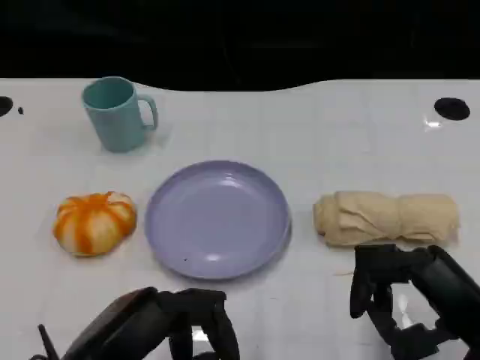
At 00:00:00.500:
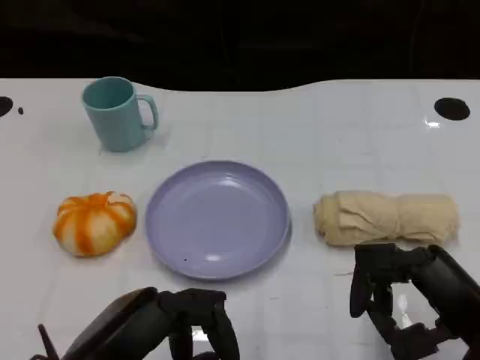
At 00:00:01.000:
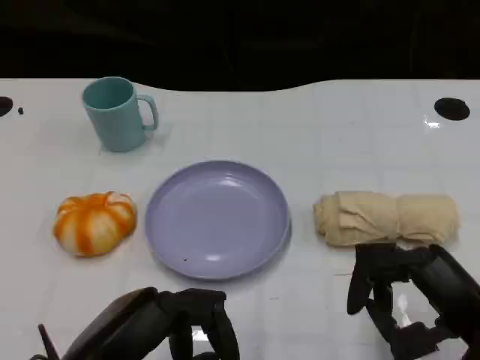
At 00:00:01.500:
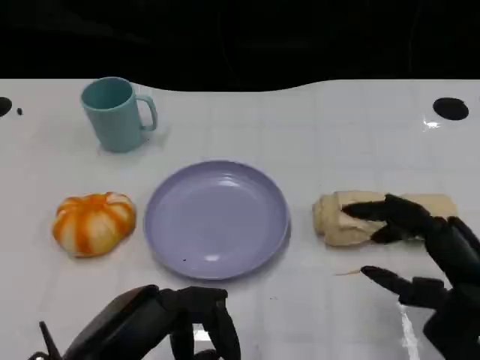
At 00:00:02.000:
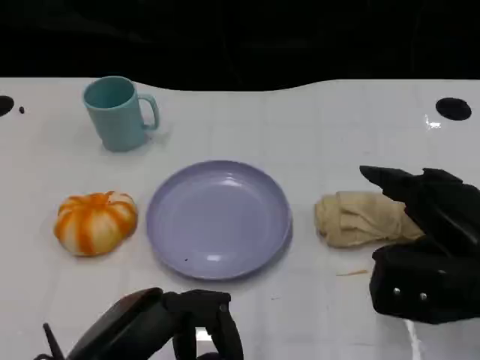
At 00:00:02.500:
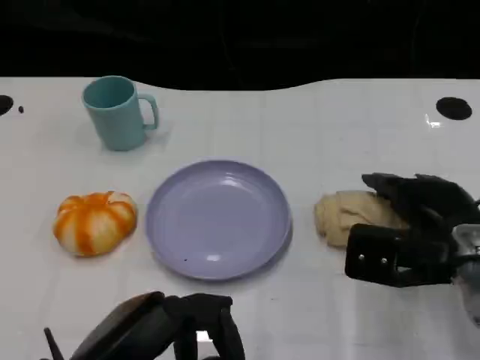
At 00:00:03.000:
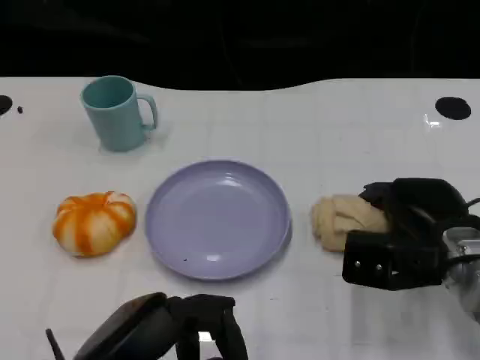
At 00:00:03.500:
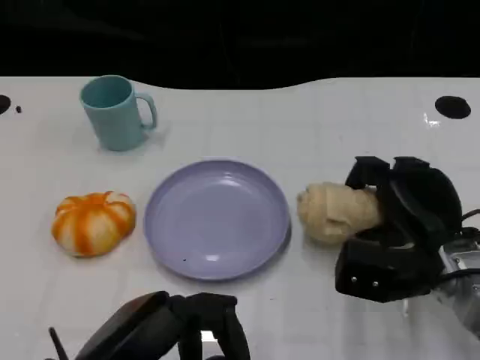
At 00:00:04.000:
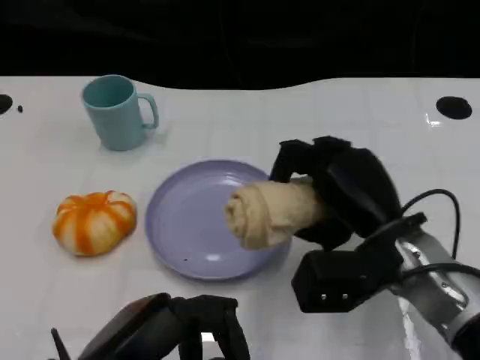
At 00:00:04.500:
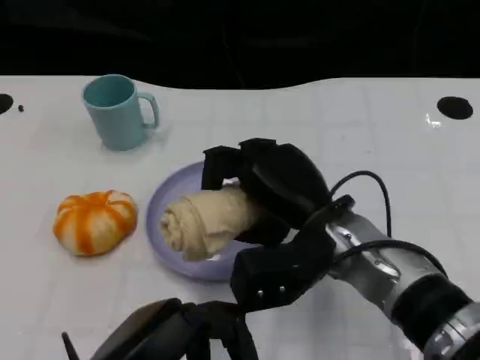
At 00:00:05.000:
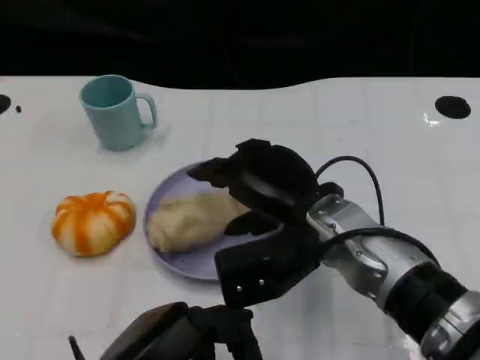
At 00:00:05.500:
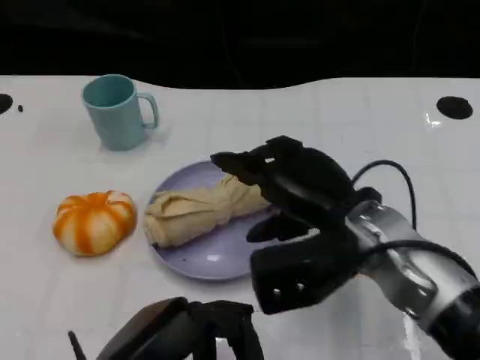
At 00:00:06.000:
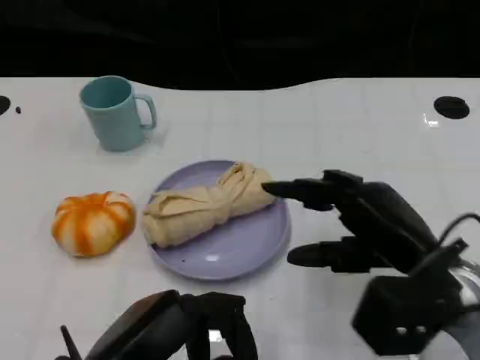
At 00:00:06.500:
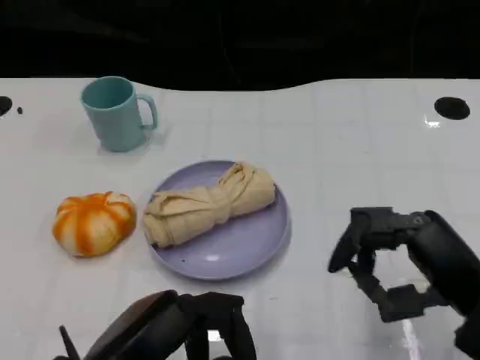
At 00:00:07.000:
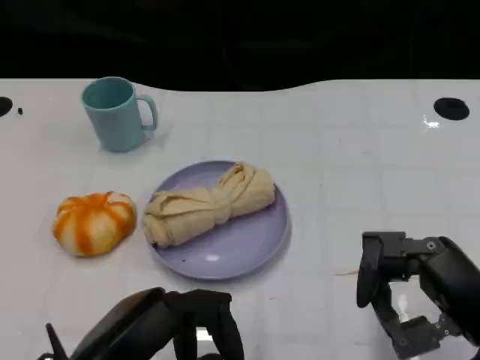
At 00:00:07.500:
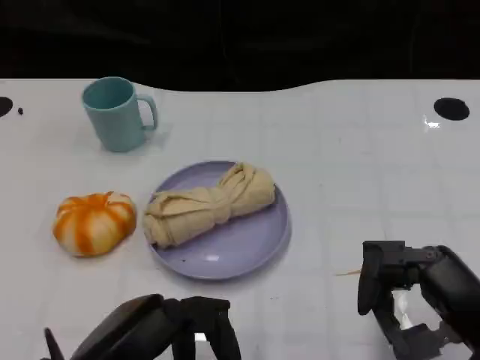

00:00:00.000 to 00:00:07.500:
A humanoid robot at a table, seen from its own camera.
Task of the whole recording: Grasp the towel on the left side of the plate with the left hand and place it into the plate.
00:00:00.000 to 00:00:02.000: The right hand is displaced forward by roughly 5 cm.
00:00:02.000 to 00:00:04.000: The right hand shifts about 10 cm to the left.
00:00:05.500 to 00:00:07.500: The right hand moves to the right and backward, roughly 15 cm.

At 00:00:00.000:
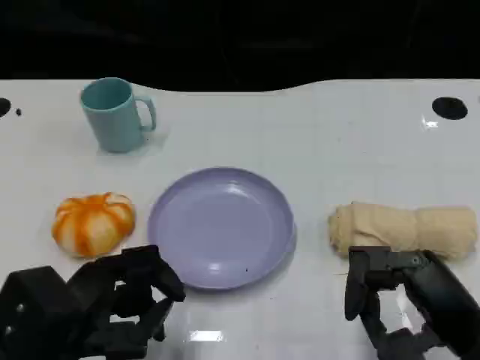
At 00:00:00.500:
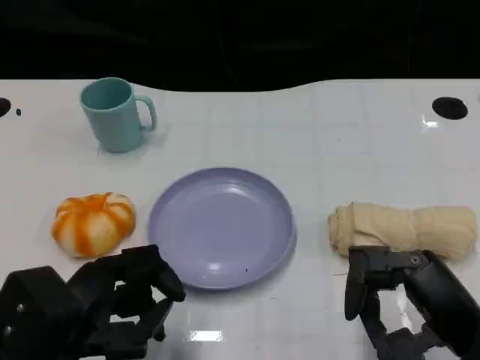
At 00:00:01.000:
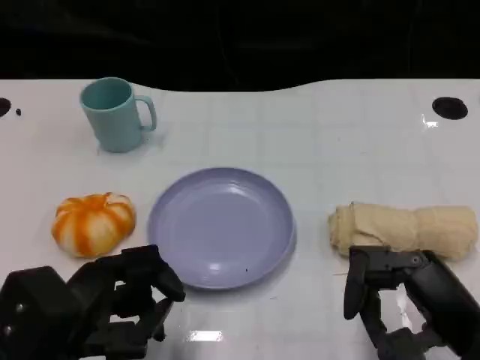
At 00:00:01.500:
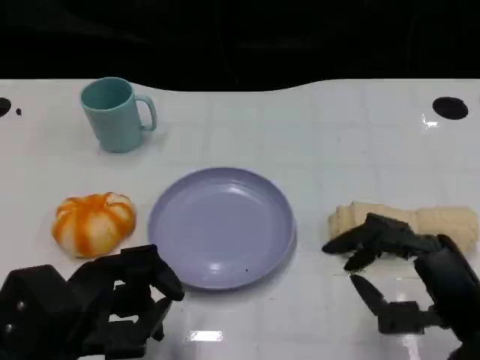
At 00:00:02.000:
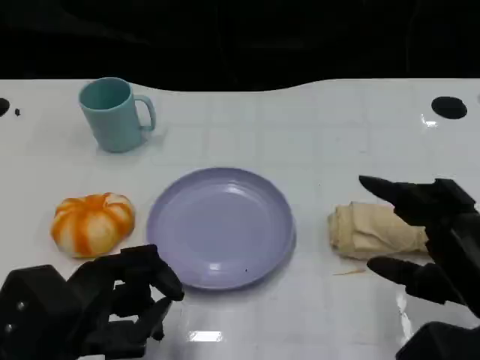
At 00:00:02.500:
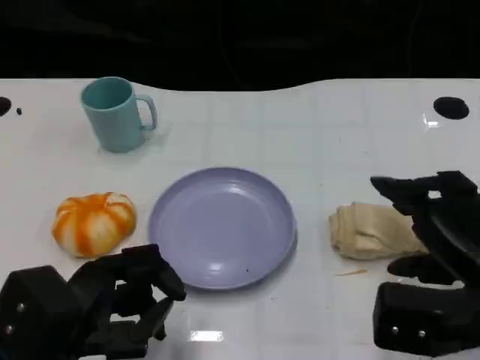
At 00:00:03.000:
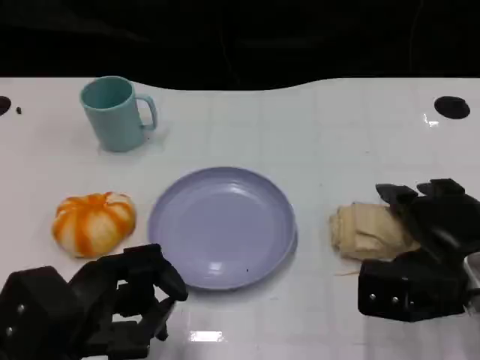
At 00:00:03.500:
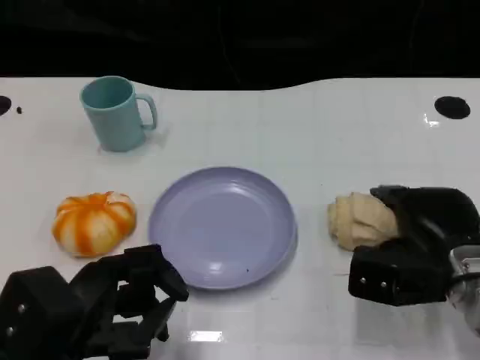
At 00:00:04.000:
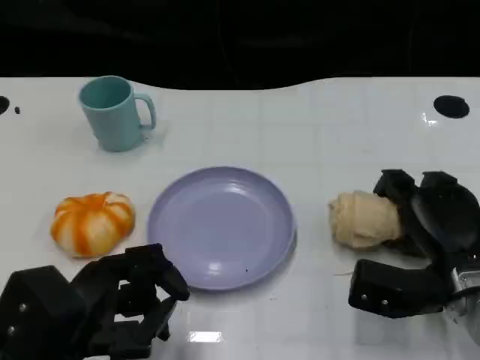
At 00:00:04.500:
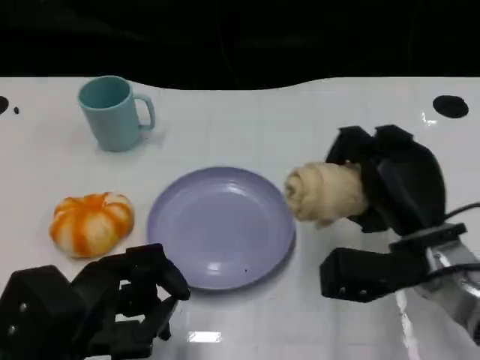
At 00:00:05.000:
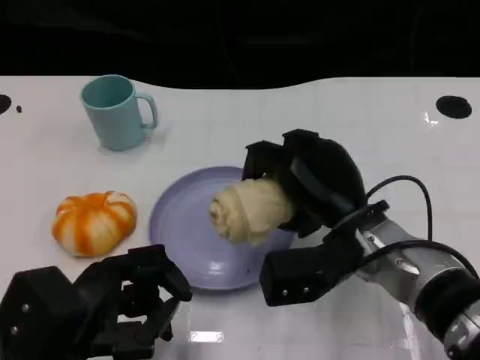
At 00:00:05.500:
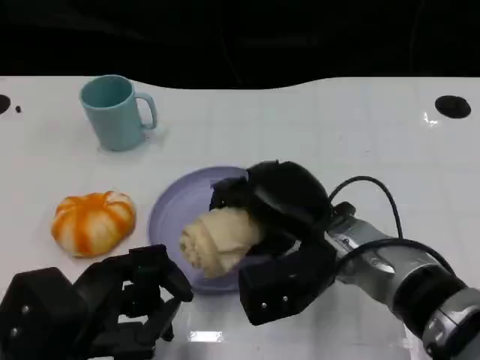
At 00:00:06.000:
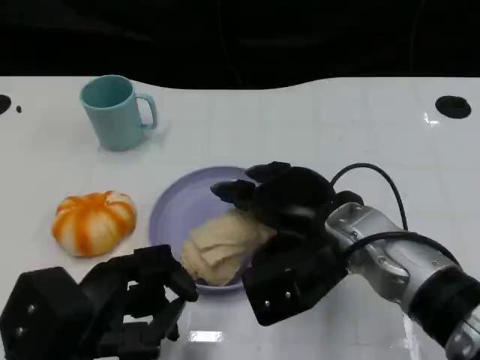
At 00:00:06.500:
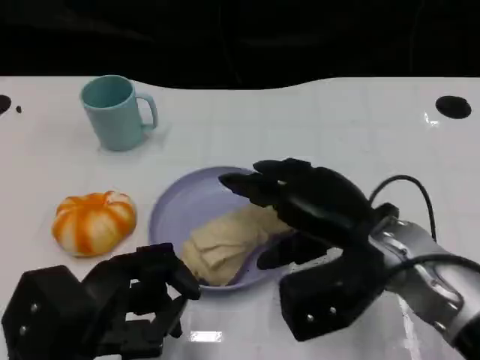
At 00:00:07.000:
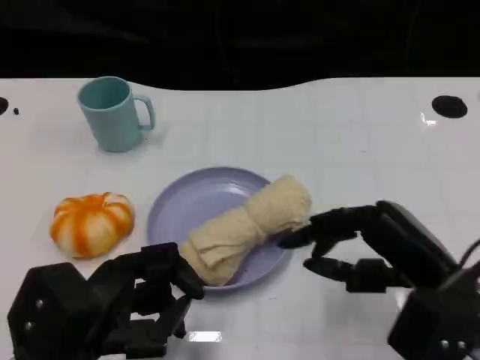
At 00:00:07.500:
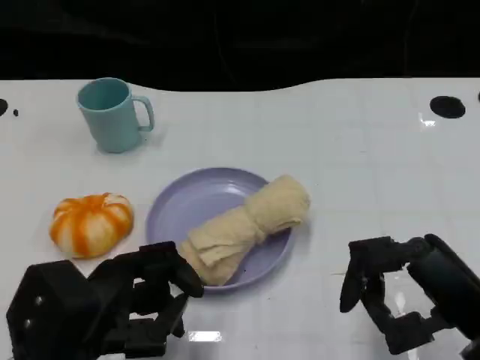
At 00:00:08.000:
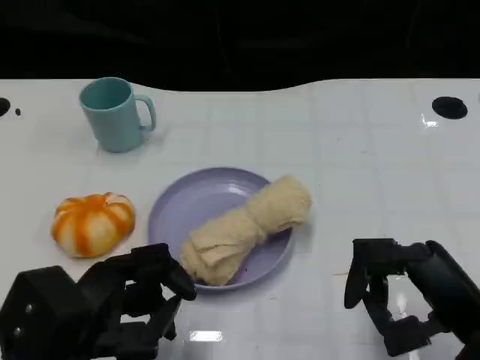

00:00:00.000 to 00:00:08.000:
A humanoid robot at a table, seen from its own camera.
Task of the whole recording: Grasp the towel on the left side of the plate with the left hand and place it into the plate.
00:00:02.000 to 00:00:04.000: The right hand is displaced forward and downward by about 10 cm.
00:00:04.000 to 00:00:06.000: The right hand goes approximately 15 cm to the left and upward.
00:00:06.000 to 00:00:08.000: The right hand is displaced to the right and backward by some 15 cm.

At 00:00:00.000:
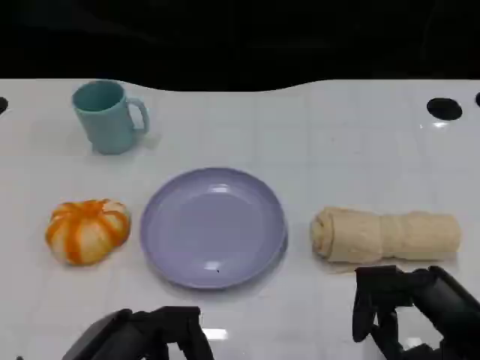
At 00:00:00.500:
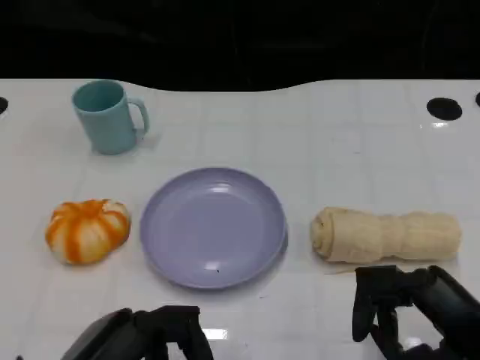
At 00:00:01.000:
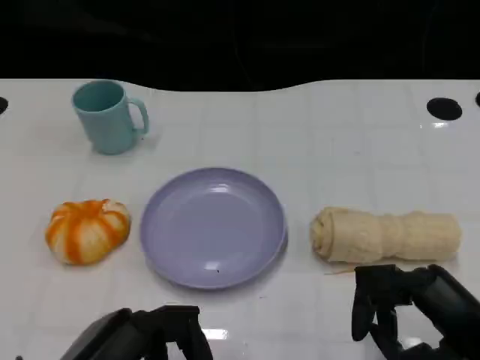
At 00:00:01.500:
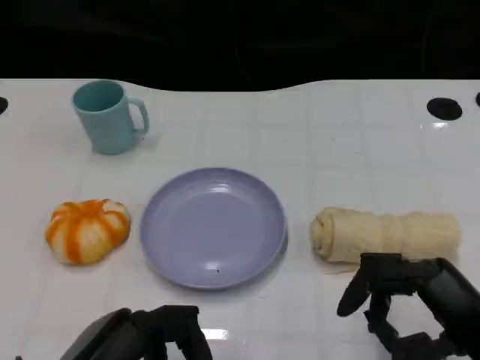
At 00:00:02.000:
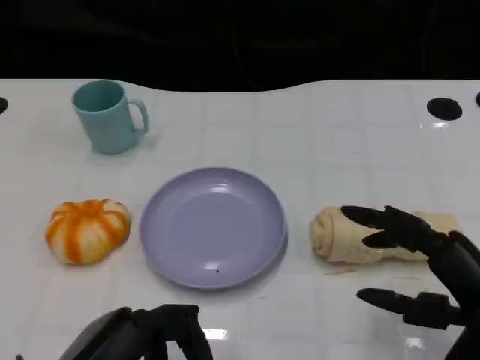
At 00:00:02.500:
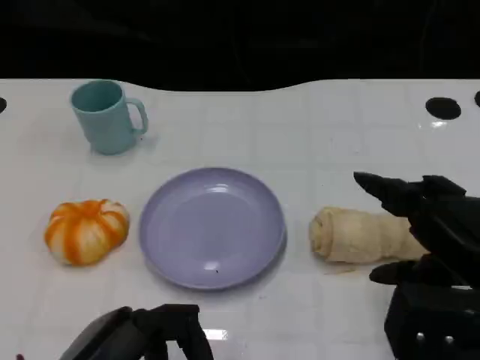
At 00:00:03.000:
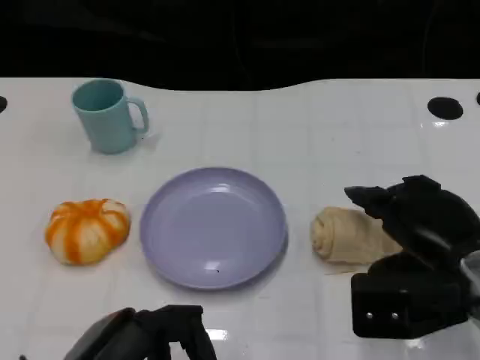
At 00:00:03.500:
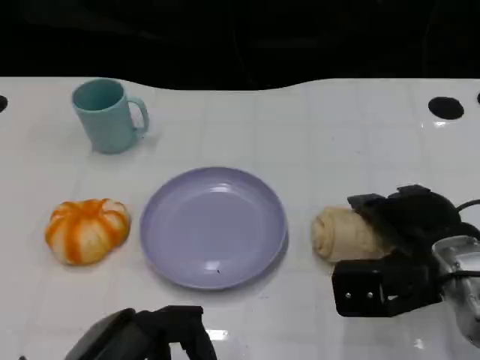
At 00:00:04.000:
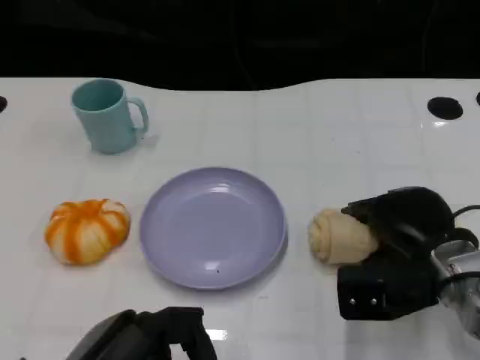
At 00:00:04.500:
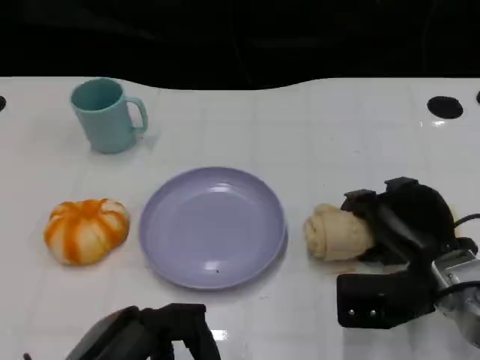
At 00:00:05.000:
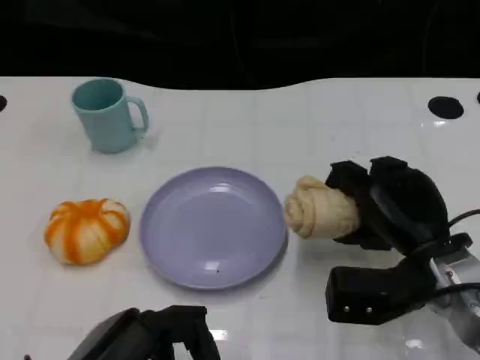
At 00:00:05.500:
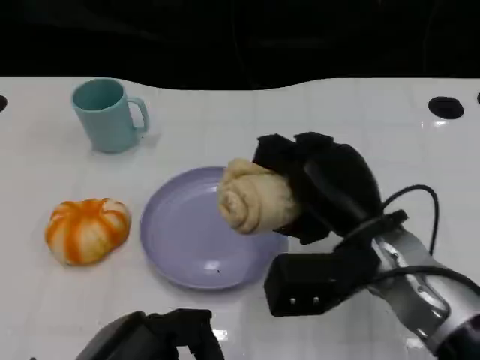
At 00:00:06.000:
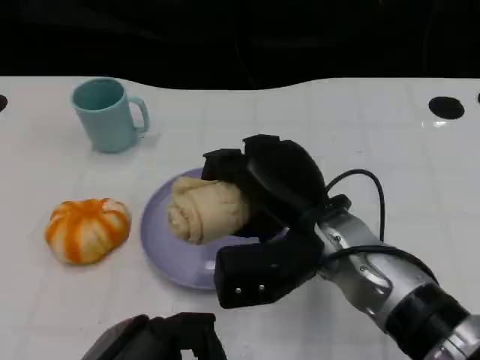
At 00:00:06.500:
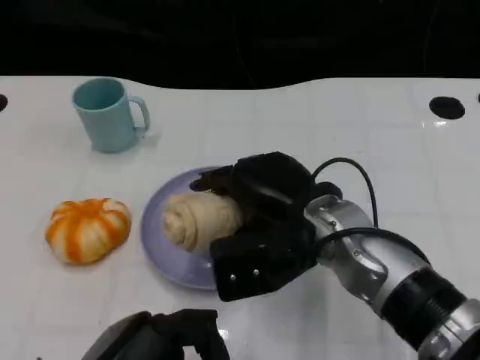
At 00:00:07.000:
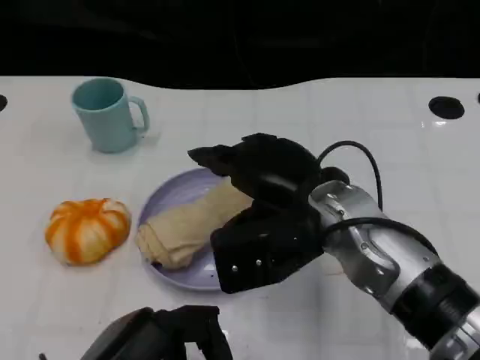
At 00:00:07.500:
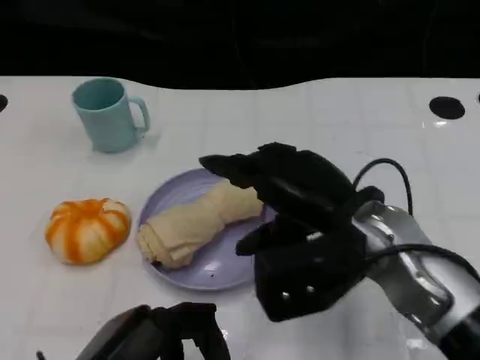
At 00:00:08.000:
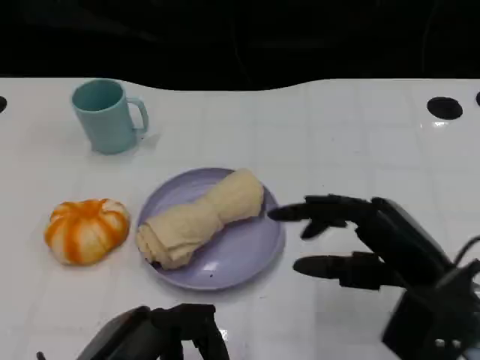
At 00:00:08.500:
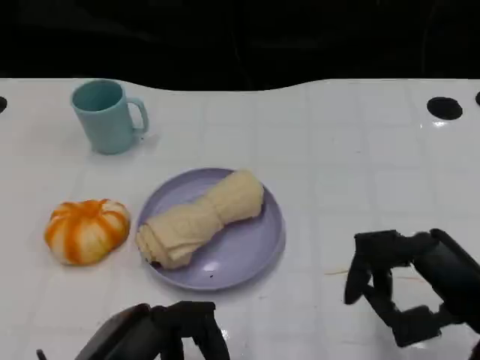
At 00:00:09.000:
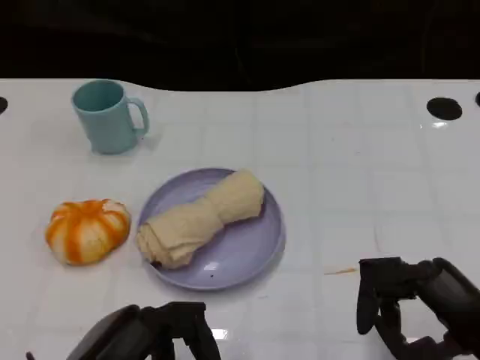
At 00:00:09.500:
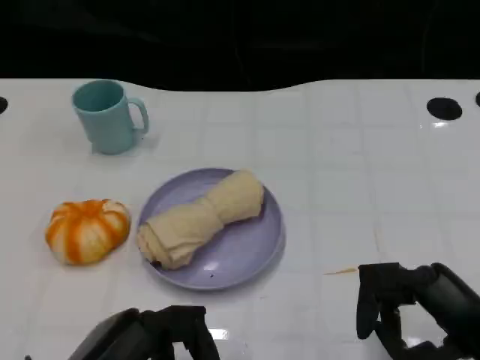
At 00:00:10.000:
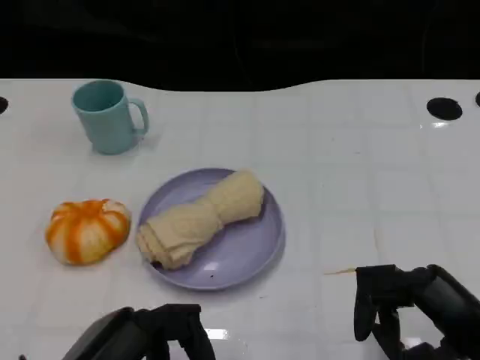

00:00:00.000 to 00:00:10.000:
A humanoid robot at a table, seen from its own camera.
Task of the whole recording: Grasp the towel on the left side of the plate with the left hand and place it into the plate.
00:00:00.000 to 00:00:02.000: The hands stay close to where they were, moving slightly.
00:00:02.000 to 00:00:04.000: The right hand goes roughly 15 cm forward and downward.
00:00:04.000 to 00:00:06.000: The right hand shifts about 15 cm to the left and upward.
00:00:06.000 to 00:00:08.000: The right hand heads to the right and backward, covering approximately 15 cm.
00:00:08.000 to 00:00:10.000: The right hand goes about 5 cm backward.
